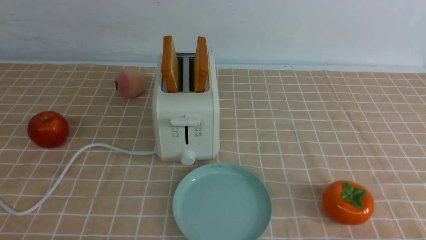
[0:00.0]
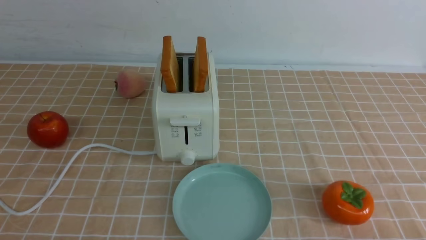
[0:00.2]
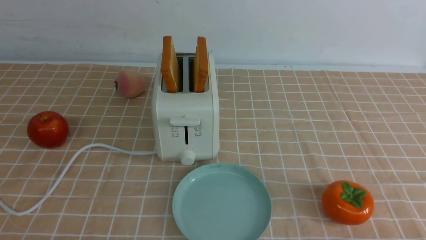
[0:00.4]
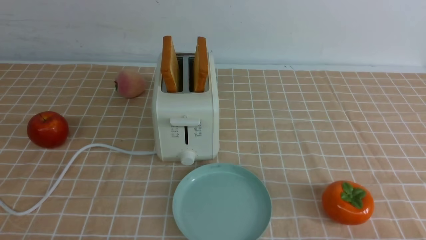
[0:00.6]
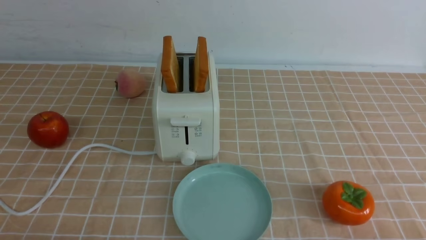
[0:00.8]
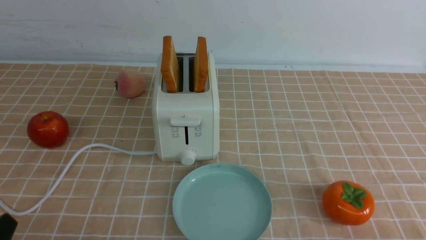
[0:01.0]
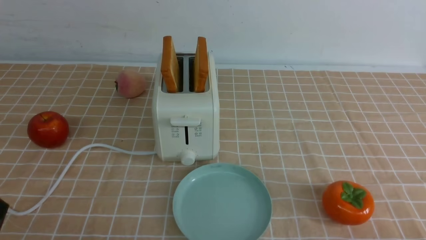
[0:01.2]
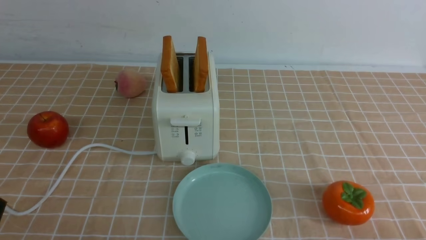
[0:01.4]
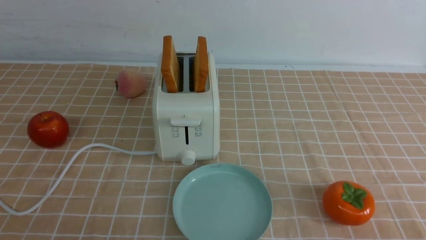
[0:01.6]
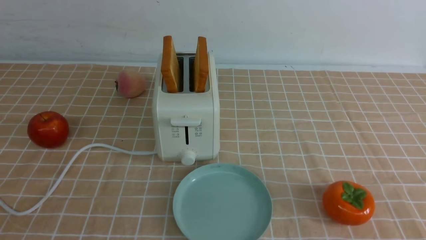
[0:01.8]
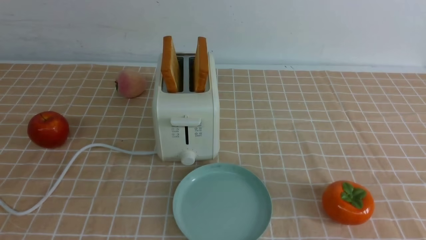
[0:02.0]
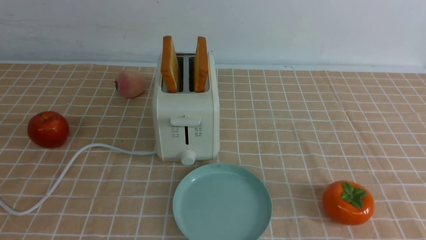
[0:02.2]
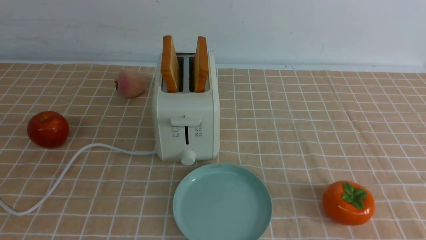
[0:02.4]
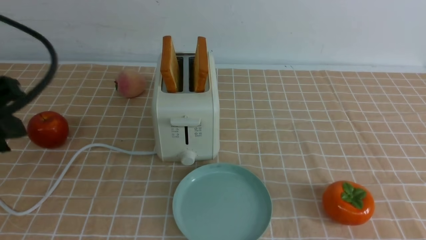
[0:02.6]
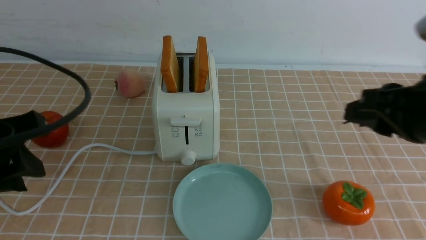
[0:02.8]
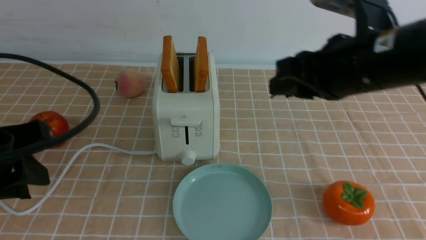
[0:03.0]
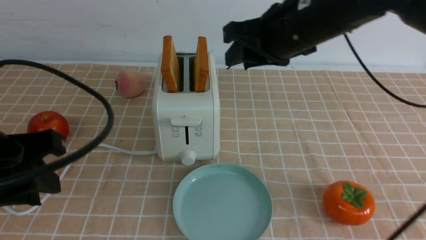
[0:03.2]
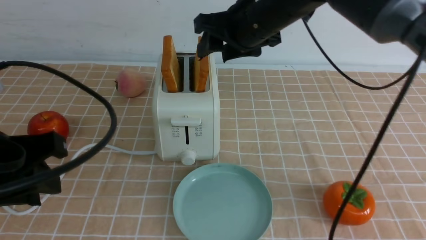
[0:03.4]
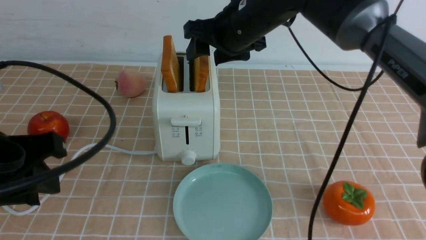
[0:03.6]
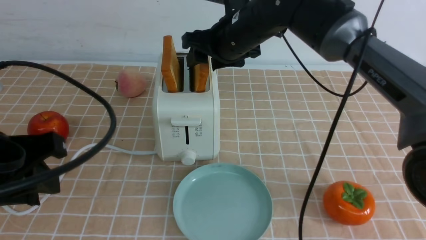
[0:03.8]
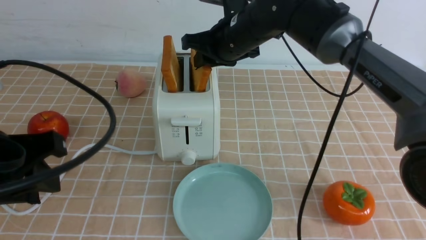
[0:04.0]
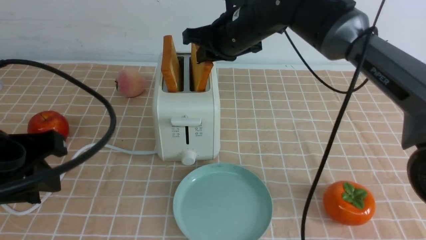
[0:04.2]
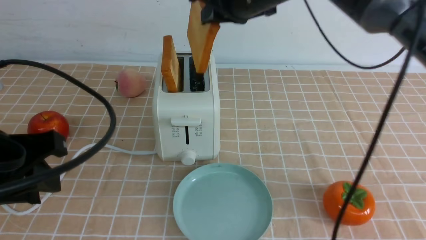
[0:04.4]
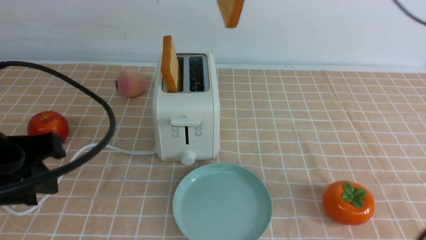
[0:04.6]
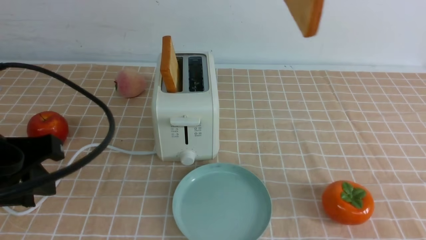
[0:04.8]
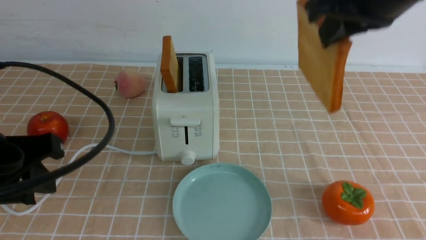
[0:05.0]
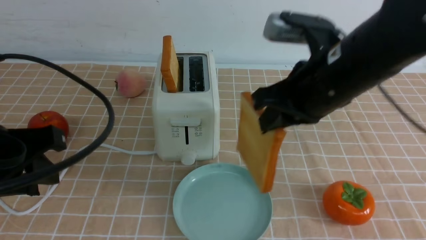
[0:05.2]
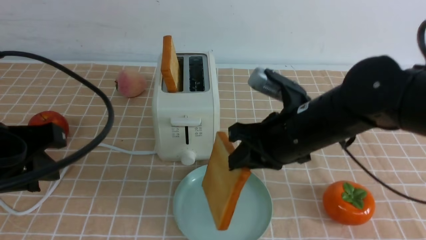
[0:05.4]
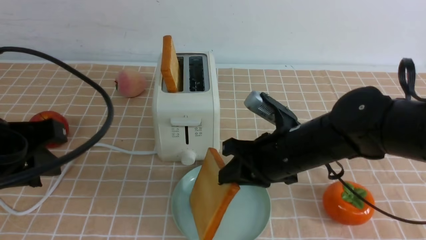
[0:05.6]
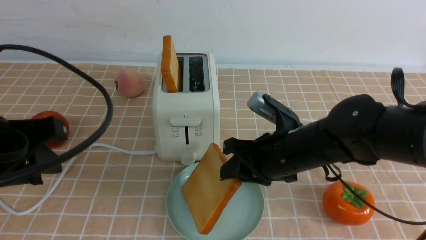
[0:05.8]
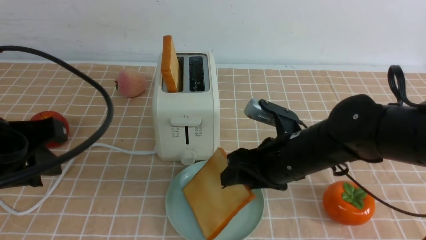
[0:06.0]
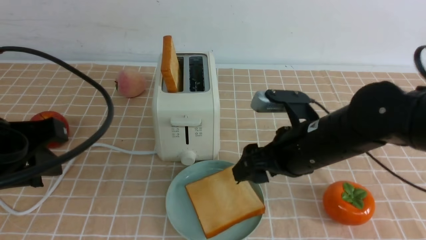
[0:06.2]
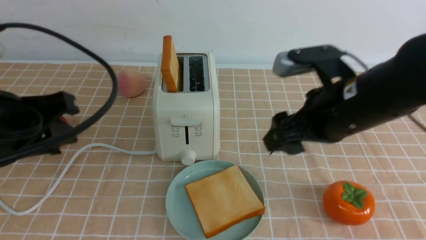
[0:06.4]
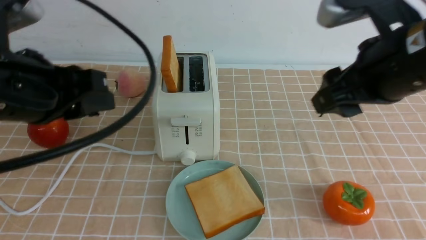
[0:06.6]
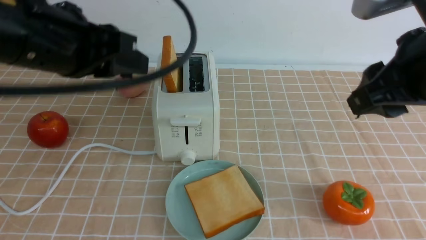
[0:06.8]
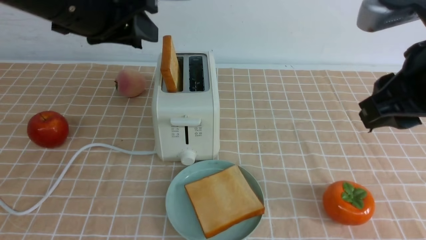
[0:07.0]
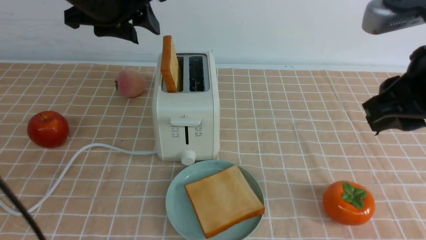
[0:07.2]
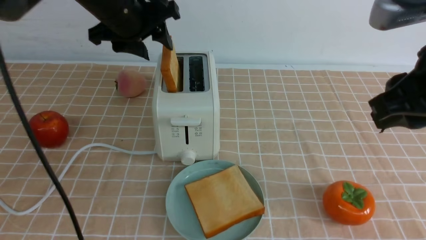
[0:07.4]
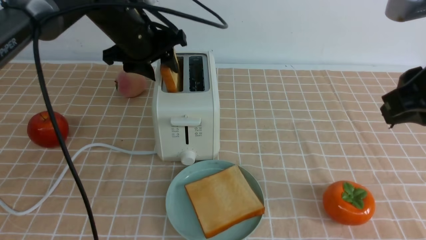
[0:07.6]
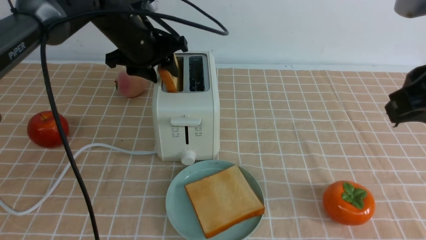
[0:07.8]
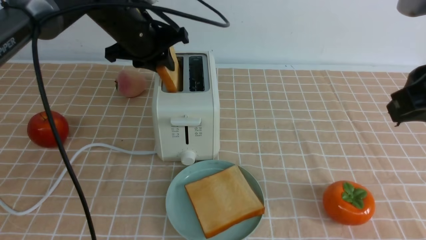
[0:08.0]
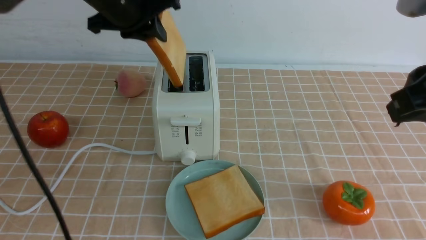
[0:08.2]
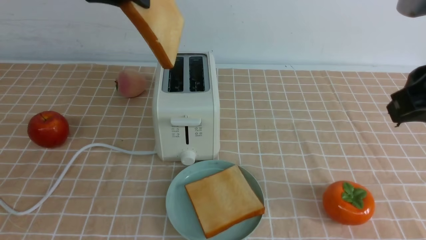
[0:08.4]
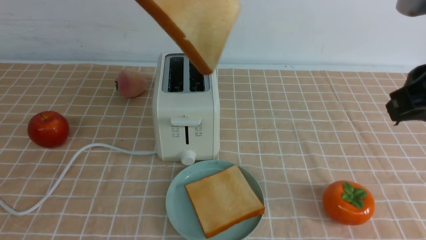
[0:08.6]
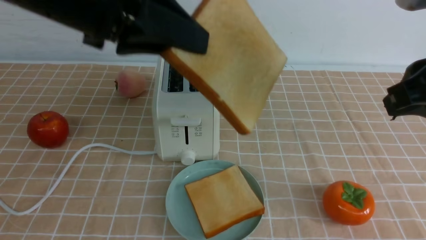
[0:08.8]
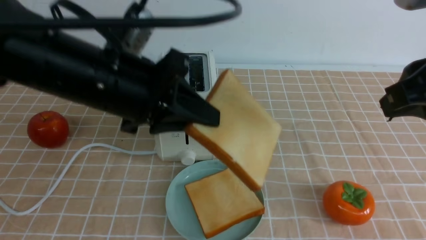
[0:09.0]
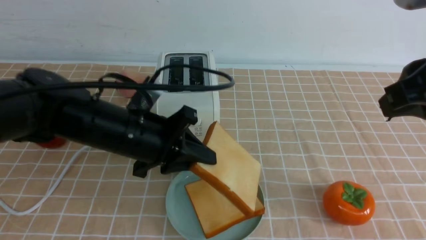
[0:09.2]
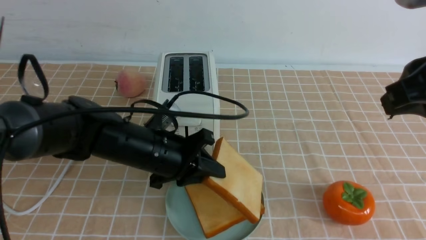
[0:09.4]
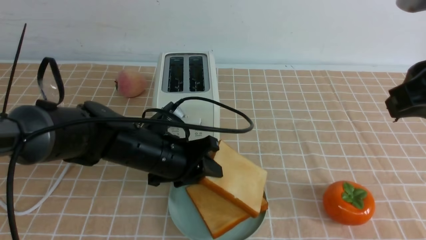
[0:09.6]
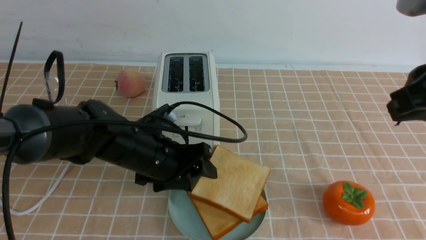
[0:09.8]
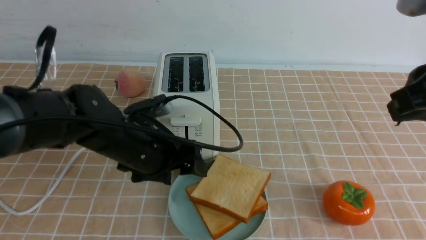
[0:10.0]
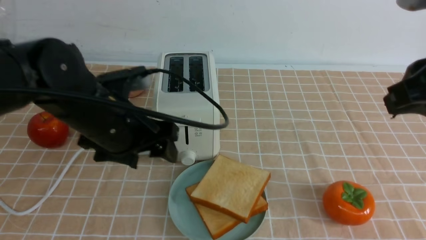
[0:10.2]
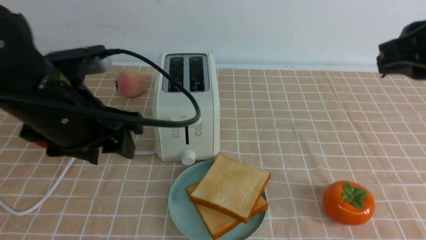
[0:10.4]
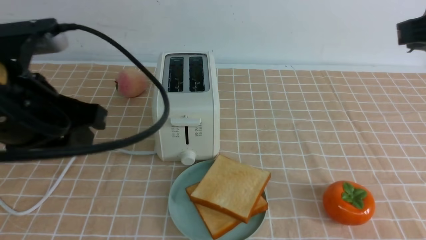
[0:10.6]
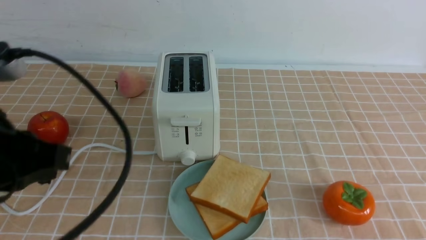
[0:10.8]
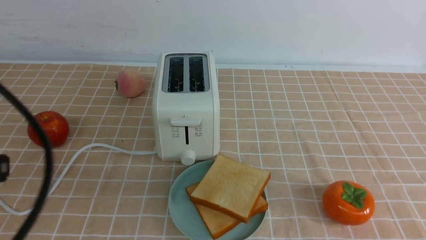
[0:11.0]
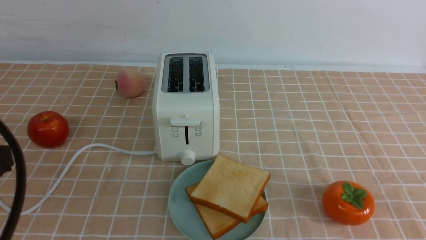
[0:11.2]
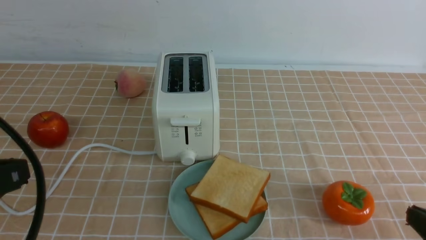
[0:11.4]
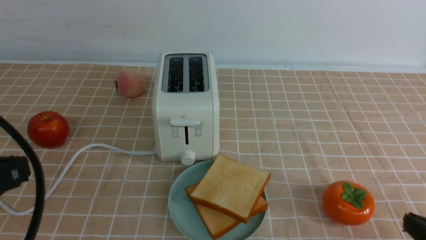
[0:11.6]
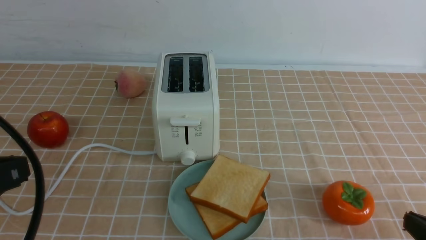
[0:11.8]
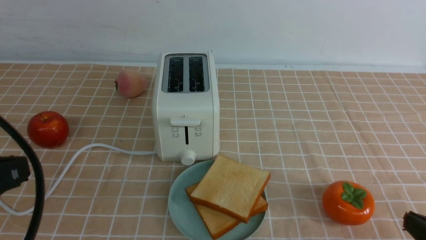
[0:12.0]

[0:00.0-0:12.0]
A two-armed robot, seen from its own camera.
Task of the whole recording: take toasted bread from bread machine on light coffee tablecloth place on plate.
Step, 0:00.0 to 0:04.2: use the right arm to take out a slice of bread.
Step, 0:04.4 to 0:06.2: use the right arm to put a slice of bread into the plate.
Step, 0:06.4 to 0:08.2: use the left arm to take out a slice of bread.
Step, 0:08.4 to 0:10.0: use the left arm to put a slice of bread into the empty plate.
0:01.6 to 0:03.0: The left gripper shifts about 15 cm forward and upward, while the right gripper is displaced forward, to the left and upward by approximately 30 cm.
0:03.0 to 0:04.4: The right gripper moves forward and to the left, roughly 15 cm, and opens and closes again.
0:04.4 to 0:06.0: The right gripper moves downward and backward, approximately 20 cm, and opens its fingers.
0:06.0 to 0:07.6: The left gripper goes roughly 25 cm forward. Meanwhile the right gripper heads upward, to the right and backward, covering about 25 cm.
0:07.6 to 0:09.0: The left gripper heads backward, covering about 15 cm, and closes up.
0:09.0 to 0:10.4: The left gripper reaches roughly 15 cm downward, then returns, and opens.
0:10.4 to 0:12.0: The right gripper moves downward and backward, about 25 cm, and closes; the left gripper goes about 15 cm backward and to the left, and closes its fingers.

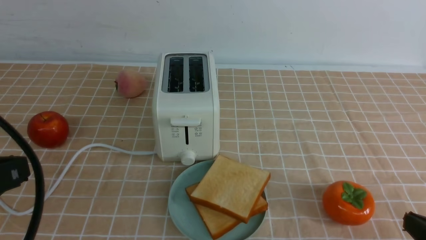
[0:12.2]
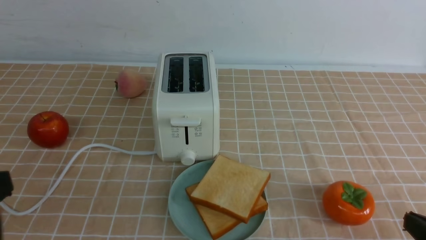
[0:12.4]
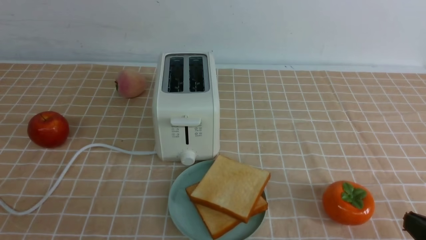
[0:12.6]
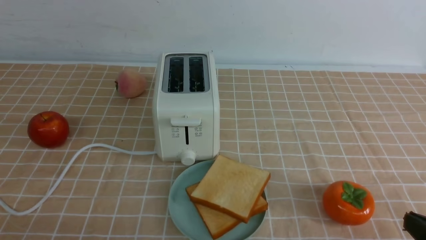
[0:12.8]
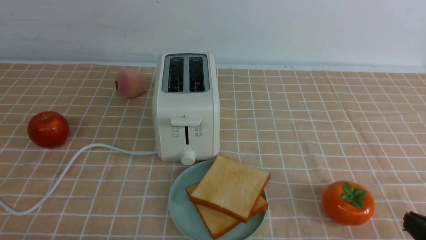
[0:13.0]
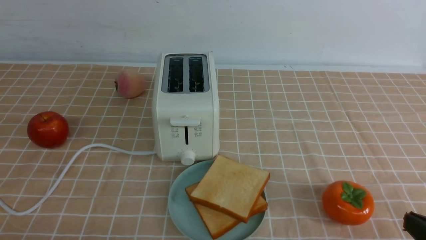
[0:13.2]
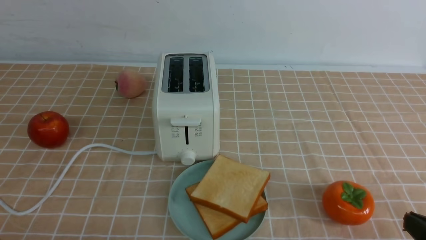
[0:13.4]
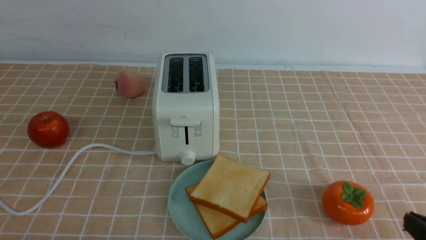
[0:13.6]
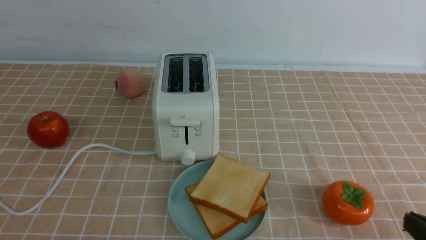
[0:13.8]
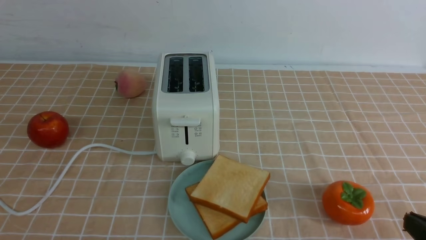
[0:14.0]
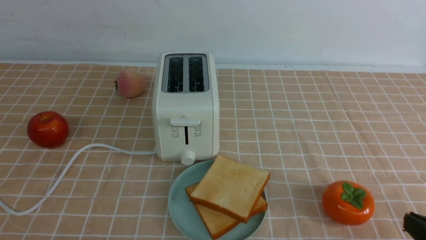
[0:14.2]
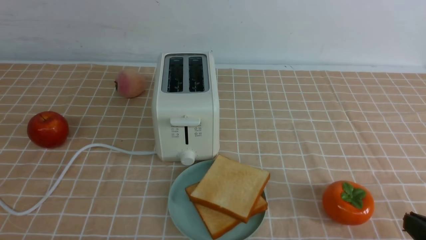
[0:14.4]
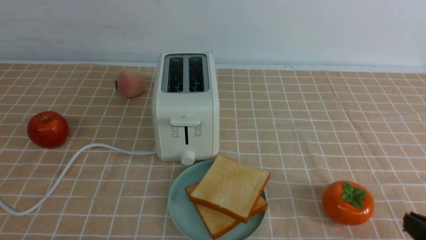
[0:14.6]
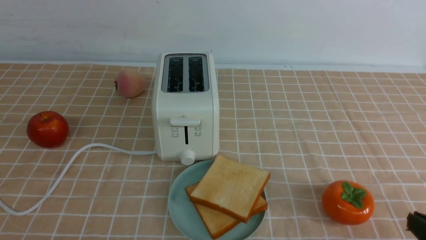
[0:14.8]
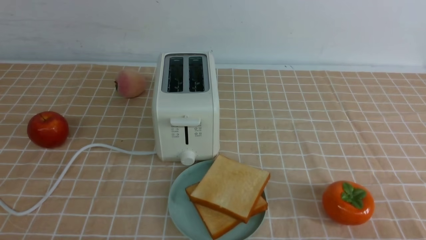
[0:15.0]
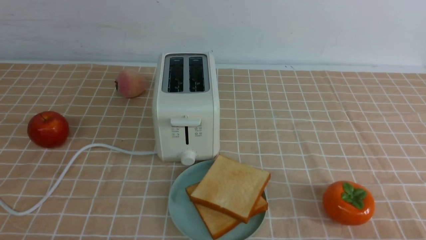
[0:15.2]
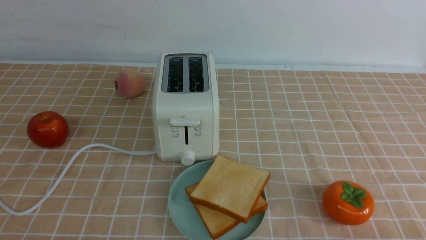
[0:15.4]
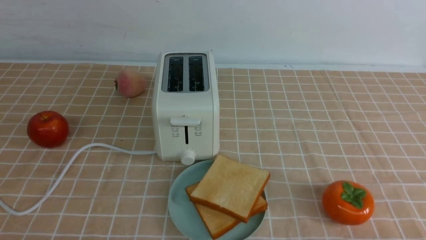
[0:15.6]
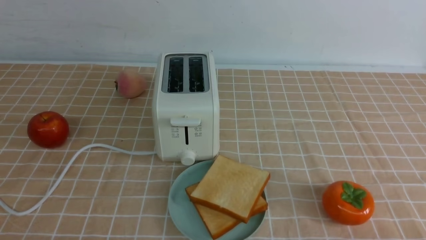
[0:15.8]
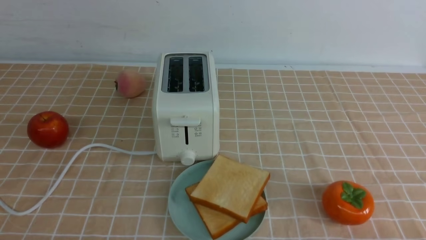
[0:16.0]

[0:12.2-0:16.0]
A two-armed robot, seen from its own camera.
Task of the whole recording: take toasted bread from bread machine on light coffee tablecloth place on plate.
0:12.2 to 0:13.4: The left gripper travels downward by approximately 15 cm.
